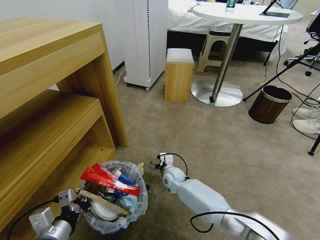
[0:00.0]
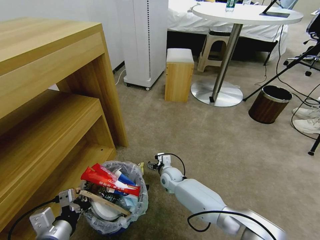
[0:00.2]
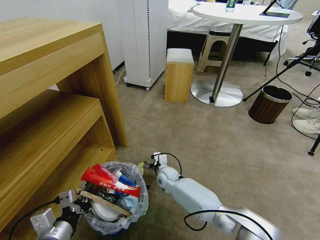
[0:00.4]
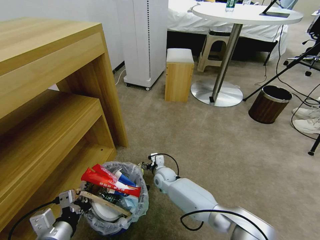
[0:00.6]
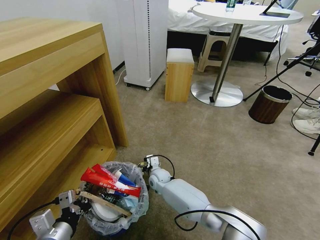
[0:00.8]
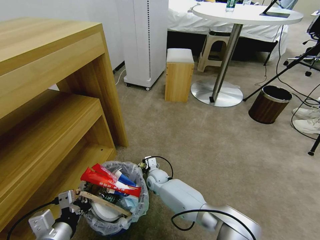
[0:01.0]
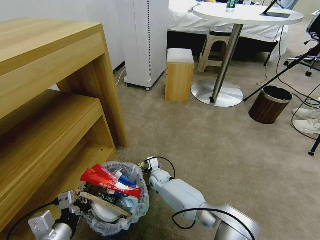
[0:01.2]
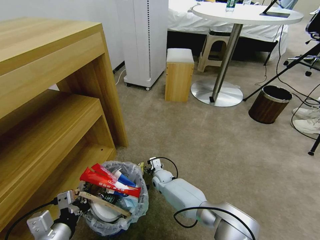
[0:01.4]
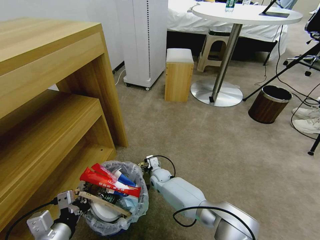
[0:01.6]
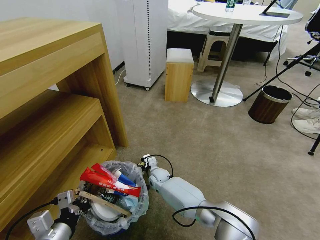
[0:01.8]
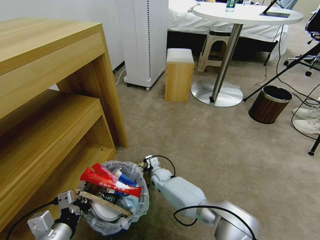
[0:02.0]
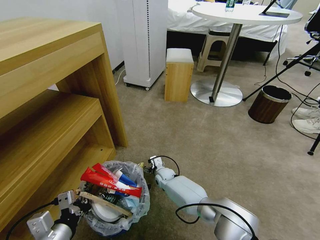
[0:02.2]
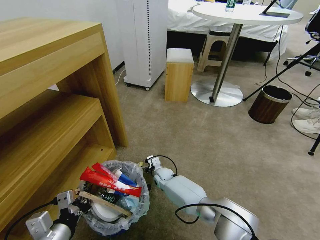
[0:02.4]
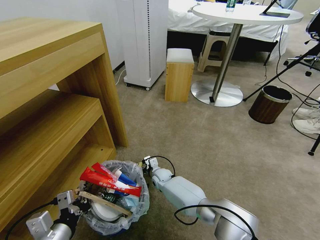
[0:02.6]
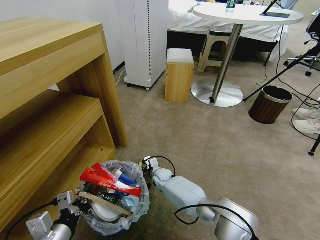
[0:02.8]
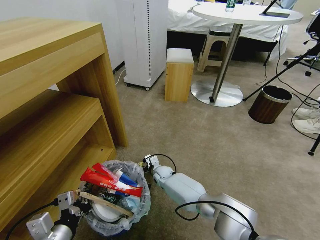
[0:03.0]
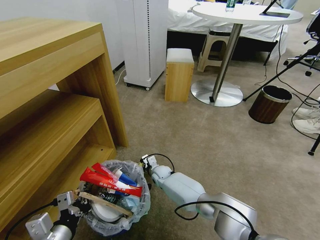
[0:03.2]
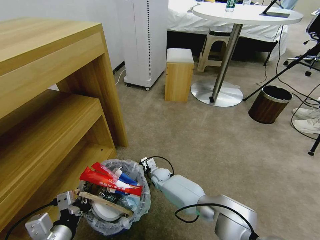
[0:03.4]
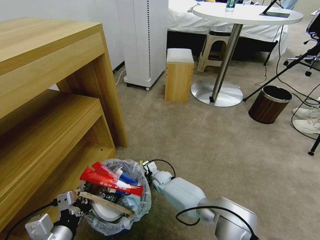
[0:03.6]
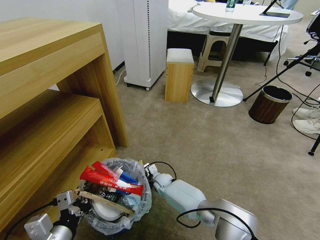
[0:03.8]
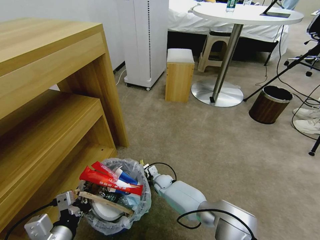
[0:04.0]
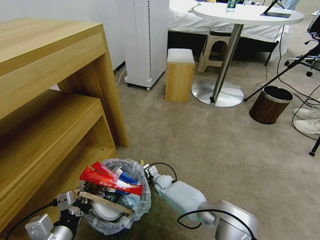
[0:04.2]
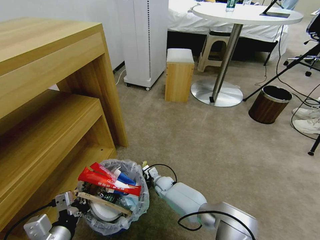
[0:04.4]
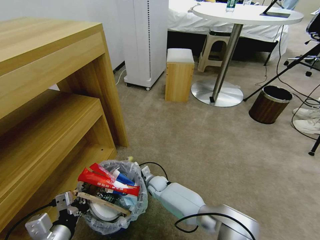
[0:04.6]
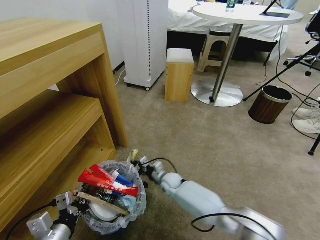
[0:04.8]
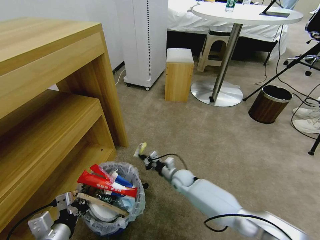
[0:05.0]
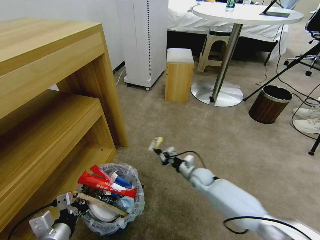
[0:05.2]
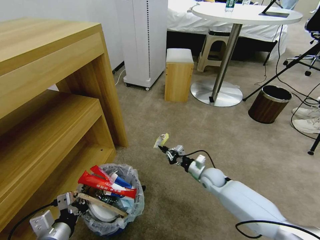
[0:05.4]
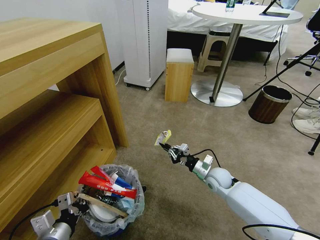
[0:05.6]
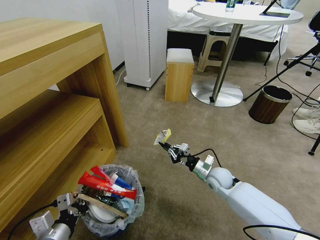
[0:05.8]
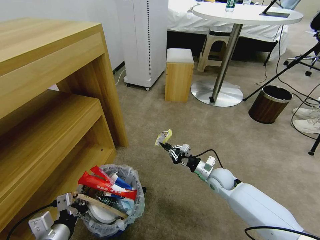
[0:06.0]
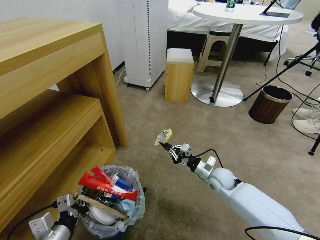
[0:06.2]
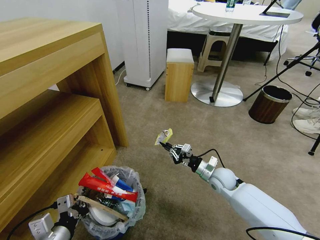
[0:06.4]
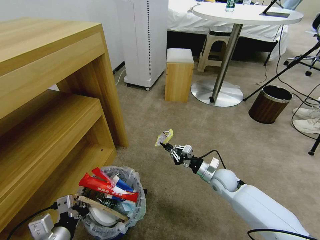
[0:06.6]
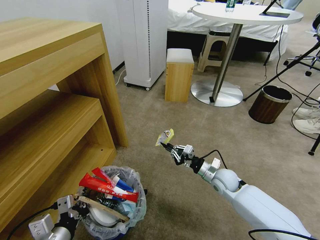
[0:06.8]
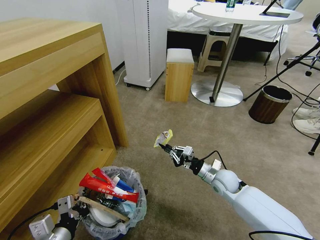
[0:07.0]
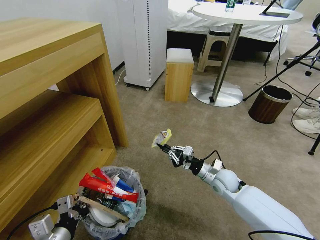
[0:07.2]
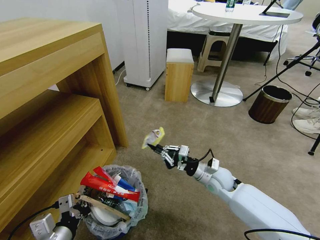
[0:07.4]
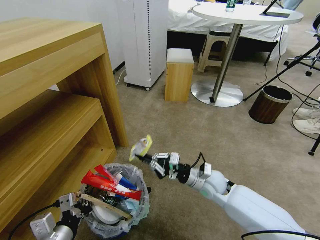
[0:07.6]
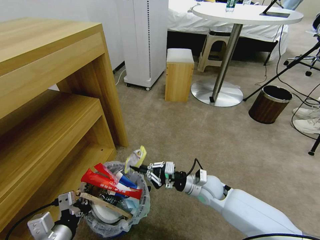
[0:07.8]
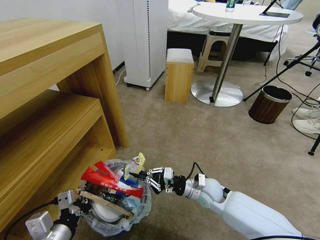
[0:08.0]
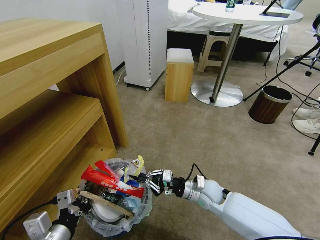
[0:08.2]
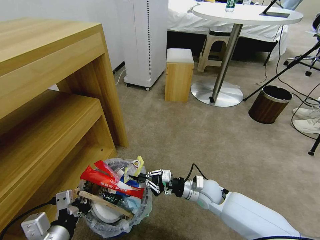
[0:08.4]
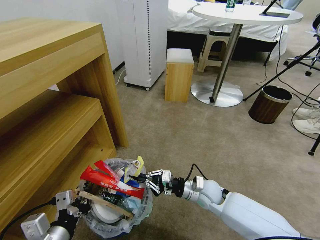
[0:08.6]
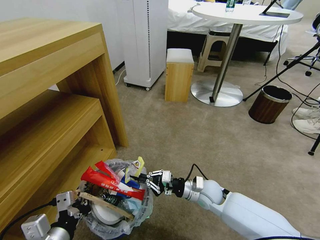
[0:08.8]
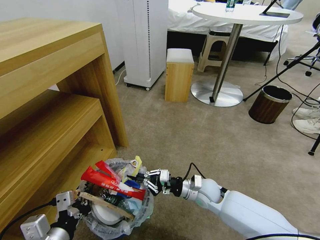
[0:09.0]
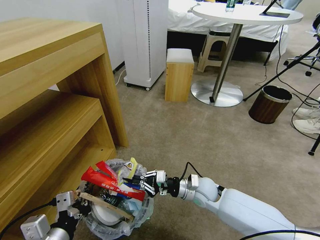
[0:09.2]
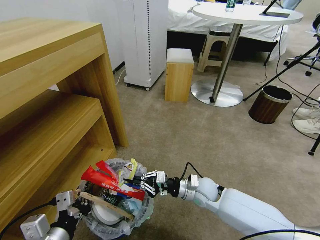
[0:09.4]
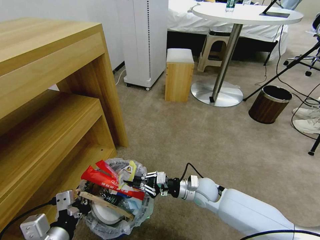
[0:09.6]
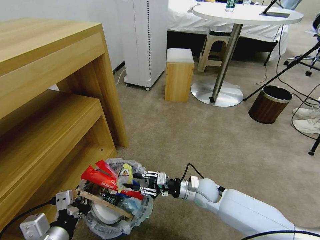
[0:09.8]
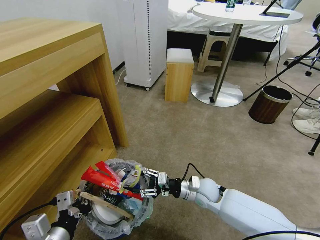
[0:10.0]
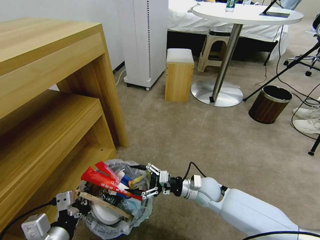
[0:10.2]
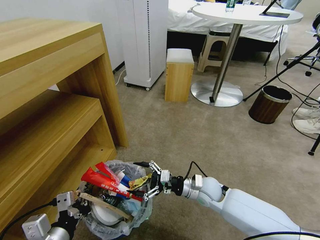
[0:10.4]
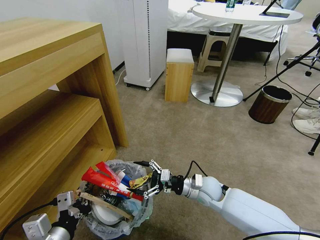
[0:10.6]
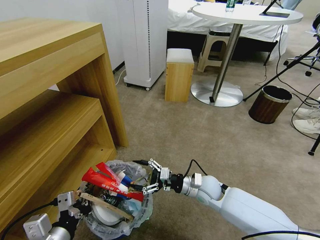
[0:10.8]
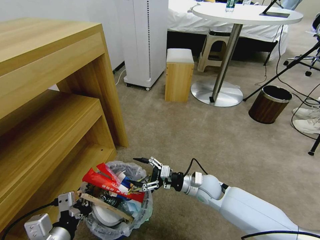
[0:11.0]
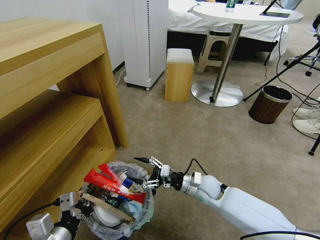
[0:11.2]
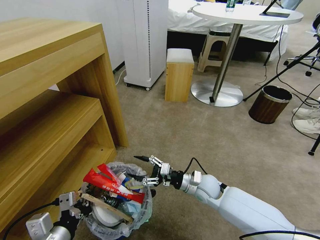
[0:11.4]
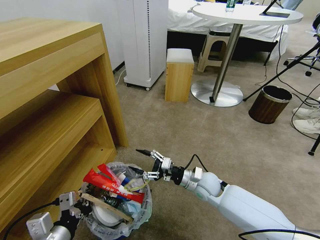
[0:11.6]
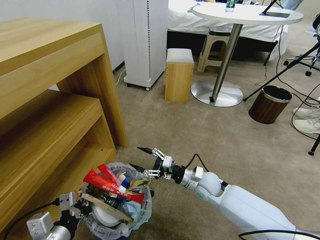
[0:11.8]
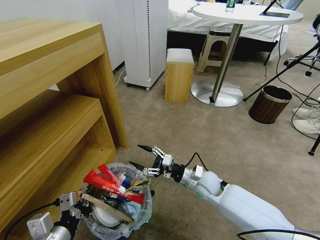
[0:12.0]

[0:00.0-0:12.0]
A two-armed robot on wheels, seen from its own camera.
Task of the whole recording: Pick up the trash bin and place the garbage on the floor into it.
0:00.0 to 0:01.6: The right gripper heads to the left, covering about 5 cm.
0:01.6 to 0:03.0: The grippers make only small movements.
0:03.0 to 0:04.4: The right gripper ends up approximately 5 cm from where it was, and closes up.
0:04.4 to 0:06.0: The right gripper goes some 25 cm to the right and upward.
0:06.0 to 0:07.6: The right gripper shifts some 5 cm to the left.
0:07.6 to 0:09.0: The grippers stay close to where they were, moving slightly.
0:09.0 to 0:10.4: The right gripper opens.
0:10.4 to 0:12.0: The grippers move only a little.

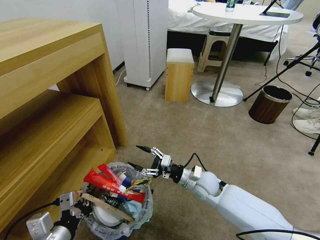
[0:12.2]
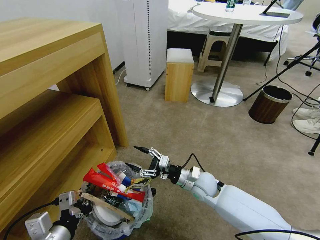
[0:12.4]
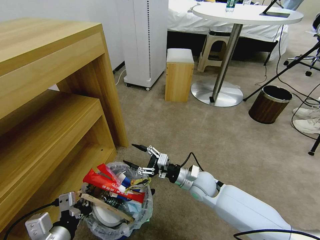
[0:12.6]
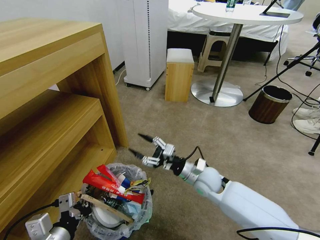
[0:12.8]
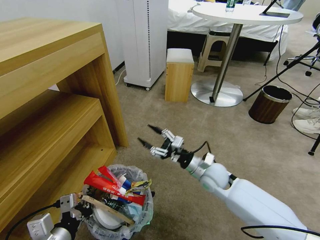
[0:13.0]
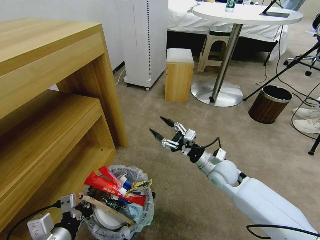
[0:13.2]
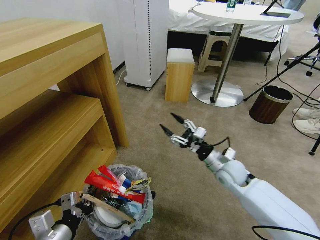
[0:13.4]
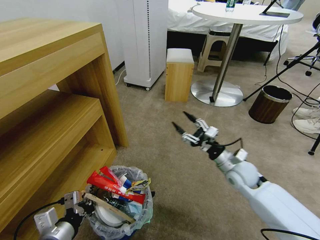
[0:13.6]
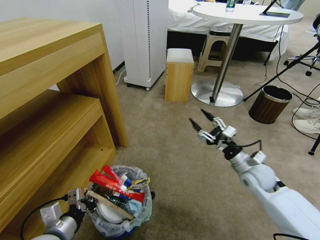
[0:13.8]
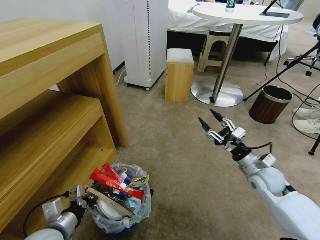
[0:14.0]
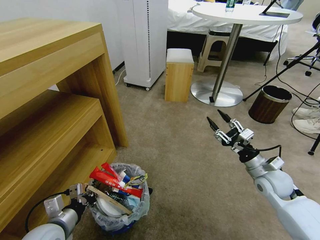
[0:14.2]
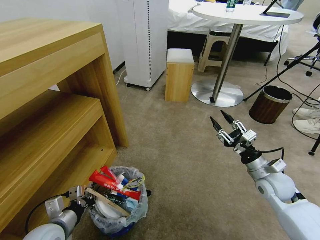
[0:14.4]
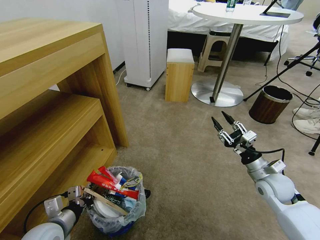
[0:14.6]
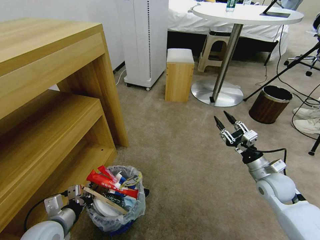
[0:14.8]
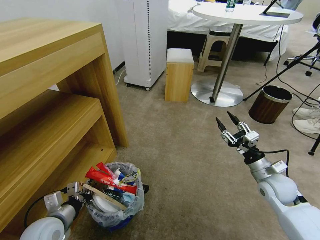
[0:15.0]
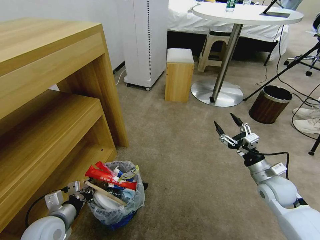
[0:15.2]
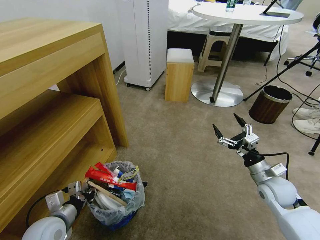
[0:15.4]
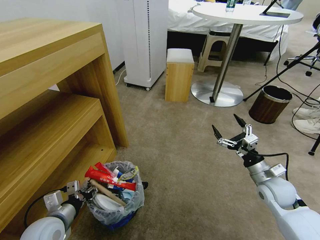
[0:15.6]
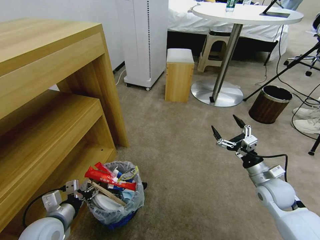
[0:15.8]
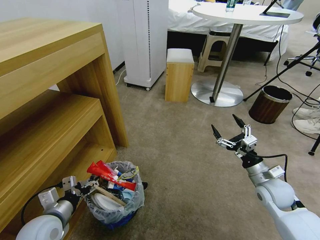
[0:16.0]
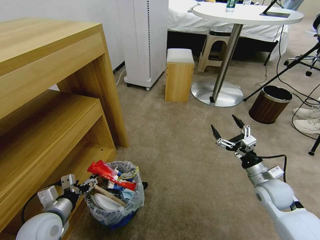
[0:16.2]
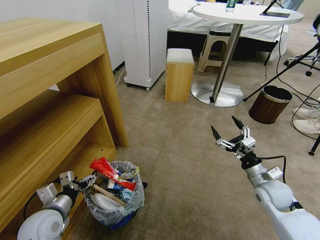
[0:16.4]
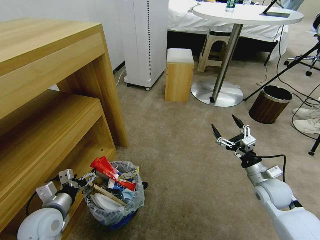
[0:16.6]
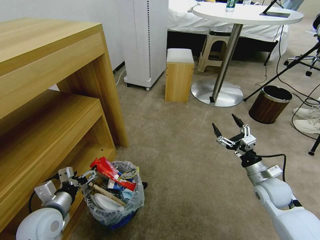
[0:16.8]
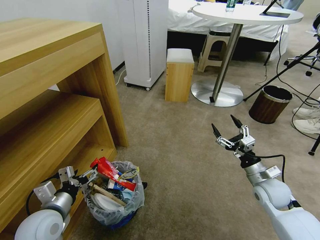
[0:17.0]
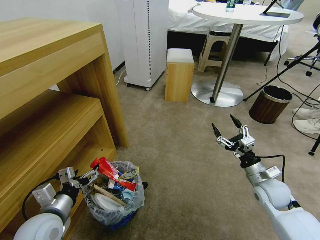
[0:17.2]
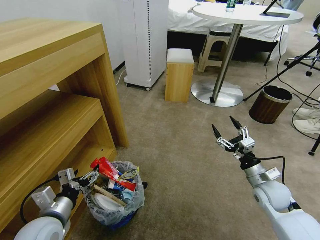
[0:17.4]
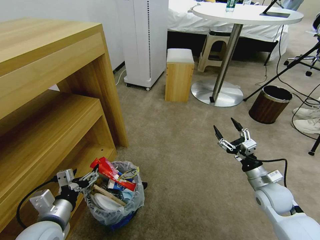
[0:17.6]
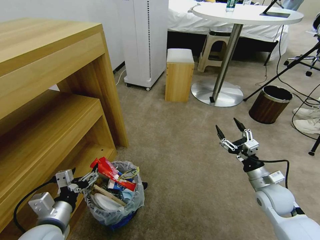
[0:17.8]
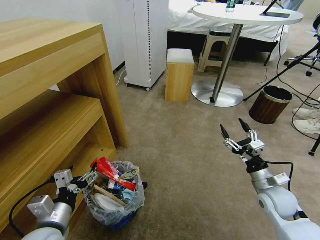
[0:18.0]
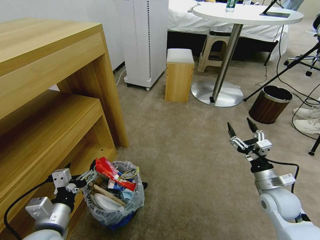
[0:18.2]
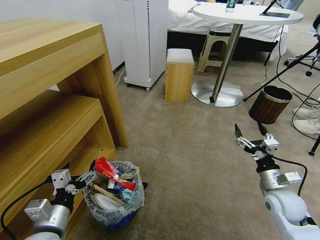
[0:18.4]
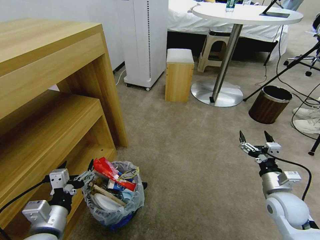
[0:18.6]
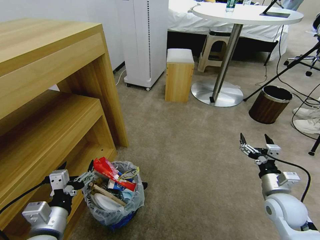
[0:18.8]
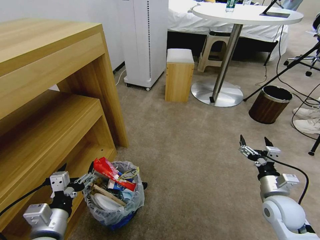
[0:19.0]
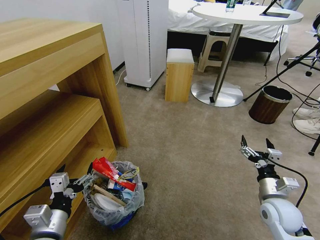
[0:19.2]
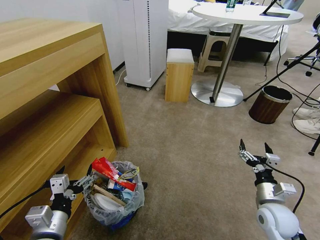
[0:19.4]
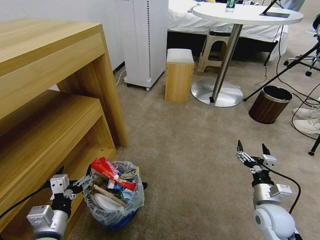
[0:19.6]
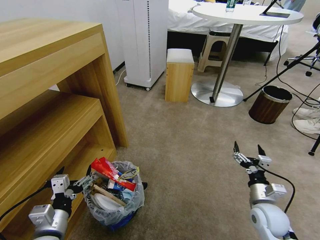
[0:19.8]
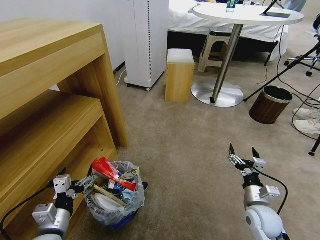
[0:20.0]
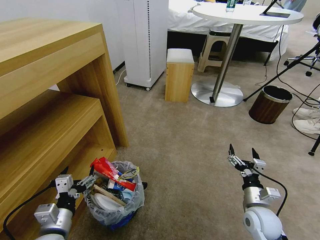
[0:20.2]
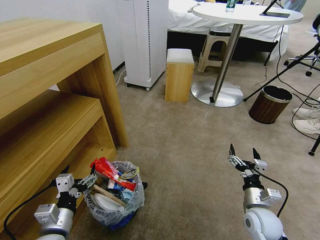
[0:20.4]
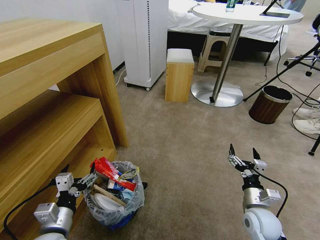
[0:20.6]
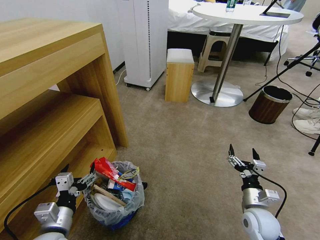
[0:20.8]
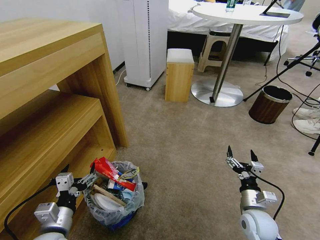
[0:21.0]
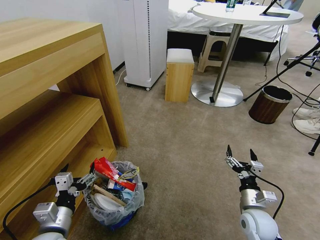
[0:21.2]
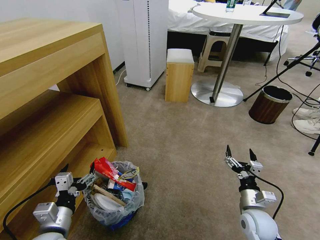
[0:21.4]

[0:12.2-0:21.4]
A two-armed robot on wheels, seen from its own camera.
Task of the whole recording: Pick up the trash bin and place the garbage on the floor into it.
0:12.2 to 0:13.8: The right gripper travels to the right and upward by roughly 15 cm. The left gripper shifts by approximately 5 cm.
0:13.8 to 0:15.2: The left gripper moves forward, approximately 5 cm; the right gripper is displaced to the right by roughly 5 cm.
0:15.2 to 0:16.8: The left gripper opens its fingers.
0:16.8 to 0:18.4: The left gripper shifts approximately 5 cm backward.
0:18.4 to 0:19.8: The right gripper changes place by some 5 cm.
0:19.8 to 0:21.4: The grippers move only a little.
